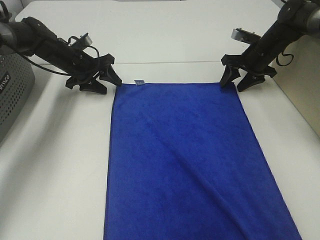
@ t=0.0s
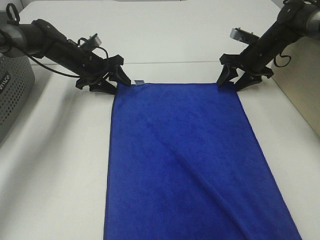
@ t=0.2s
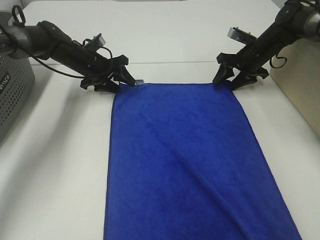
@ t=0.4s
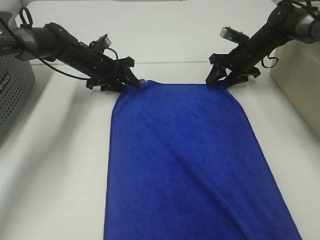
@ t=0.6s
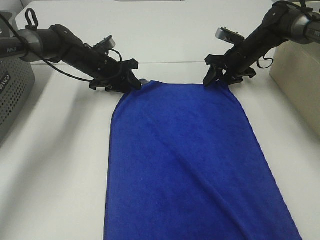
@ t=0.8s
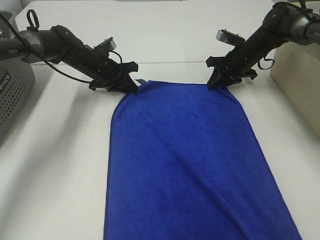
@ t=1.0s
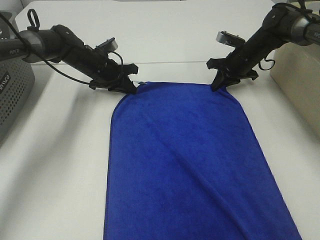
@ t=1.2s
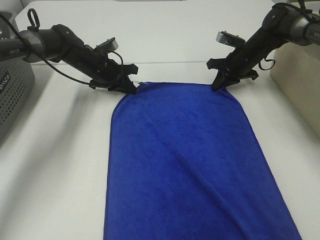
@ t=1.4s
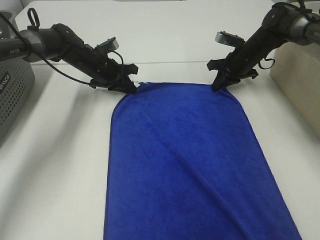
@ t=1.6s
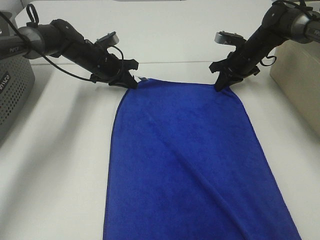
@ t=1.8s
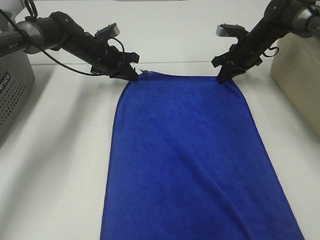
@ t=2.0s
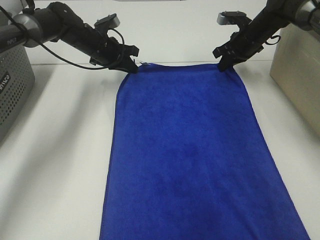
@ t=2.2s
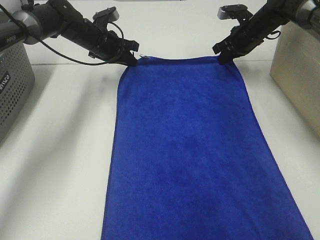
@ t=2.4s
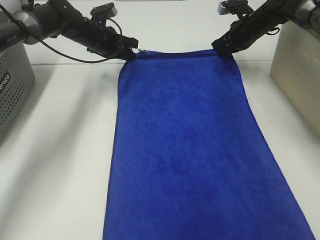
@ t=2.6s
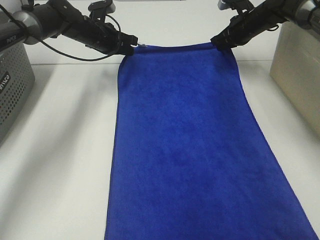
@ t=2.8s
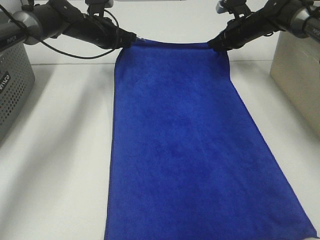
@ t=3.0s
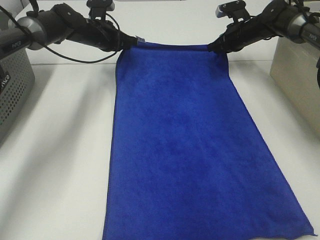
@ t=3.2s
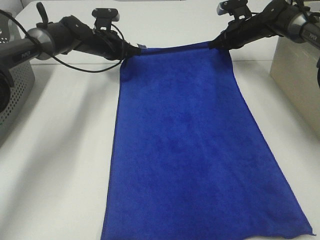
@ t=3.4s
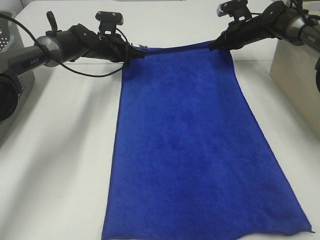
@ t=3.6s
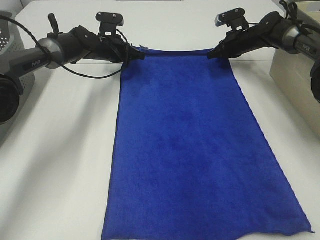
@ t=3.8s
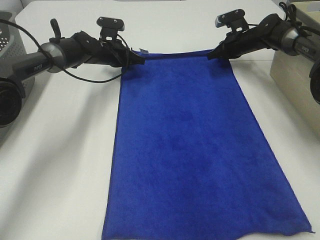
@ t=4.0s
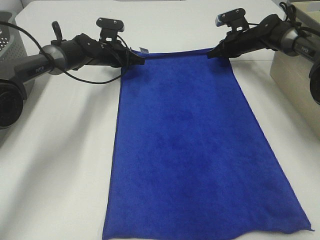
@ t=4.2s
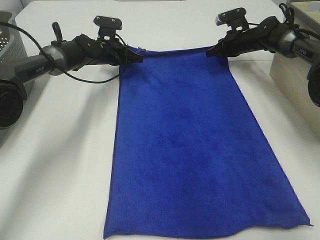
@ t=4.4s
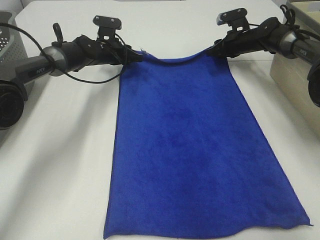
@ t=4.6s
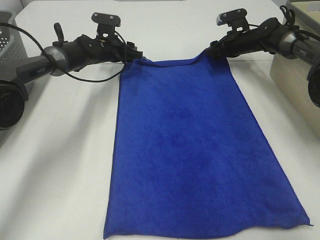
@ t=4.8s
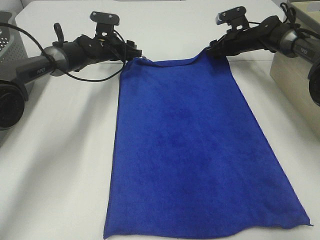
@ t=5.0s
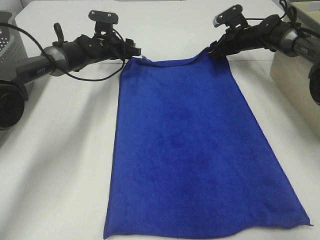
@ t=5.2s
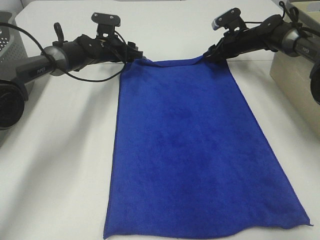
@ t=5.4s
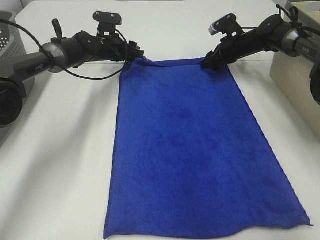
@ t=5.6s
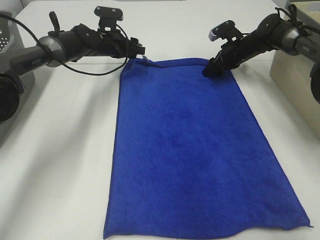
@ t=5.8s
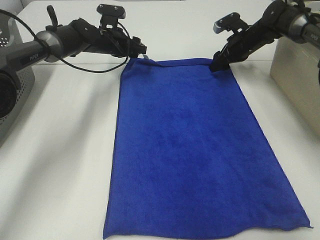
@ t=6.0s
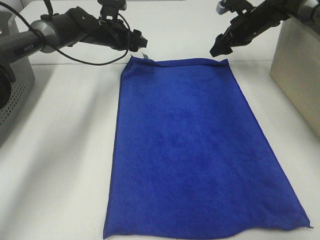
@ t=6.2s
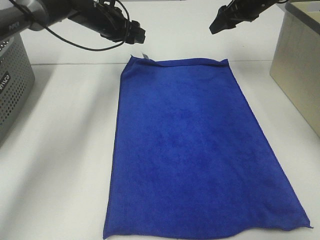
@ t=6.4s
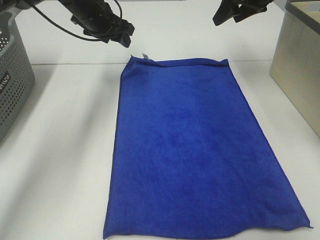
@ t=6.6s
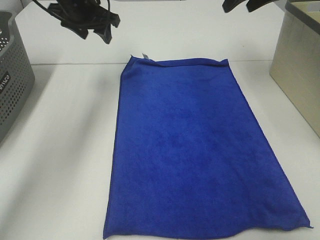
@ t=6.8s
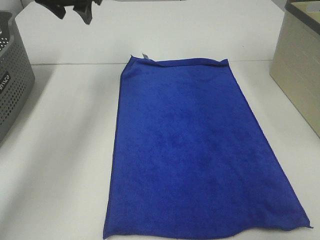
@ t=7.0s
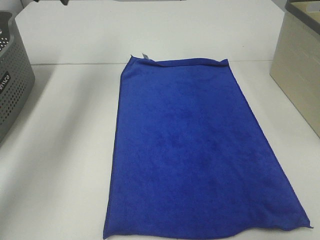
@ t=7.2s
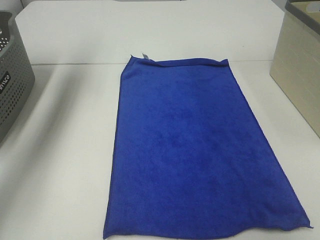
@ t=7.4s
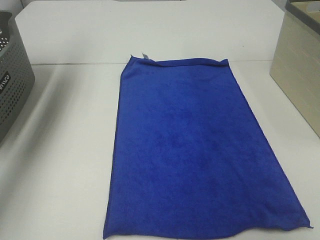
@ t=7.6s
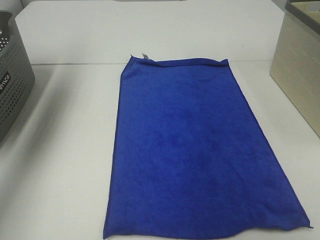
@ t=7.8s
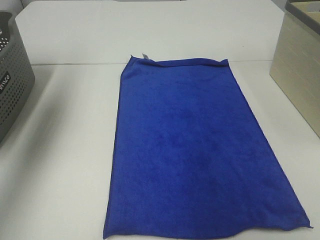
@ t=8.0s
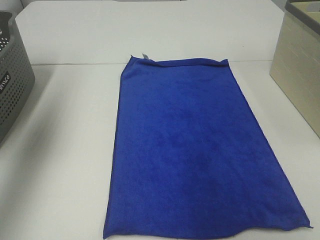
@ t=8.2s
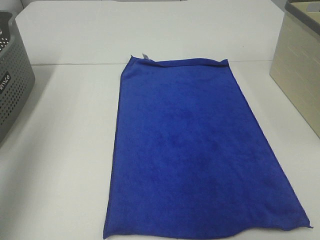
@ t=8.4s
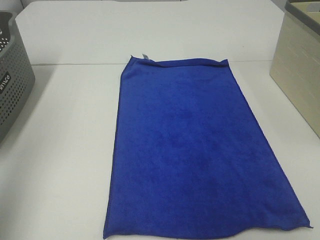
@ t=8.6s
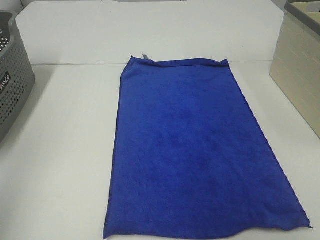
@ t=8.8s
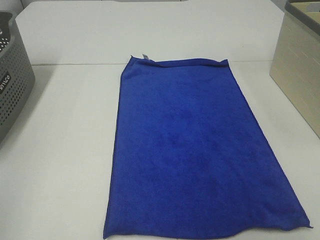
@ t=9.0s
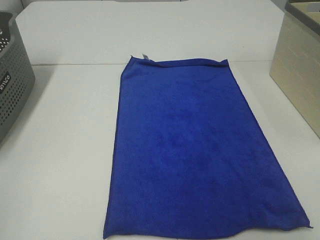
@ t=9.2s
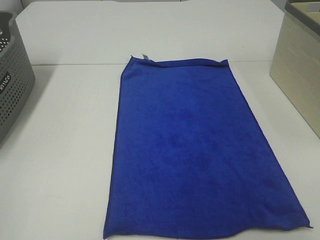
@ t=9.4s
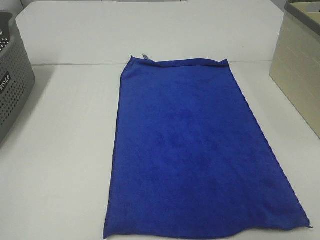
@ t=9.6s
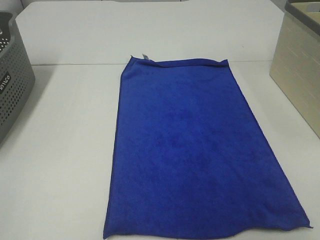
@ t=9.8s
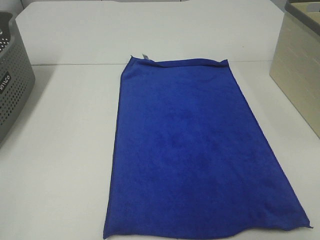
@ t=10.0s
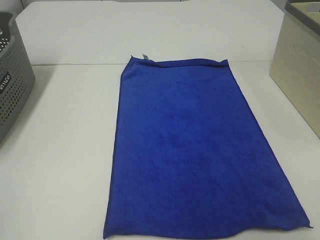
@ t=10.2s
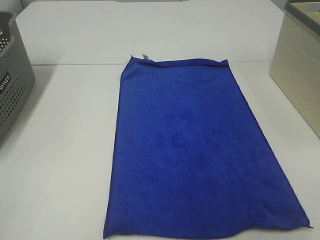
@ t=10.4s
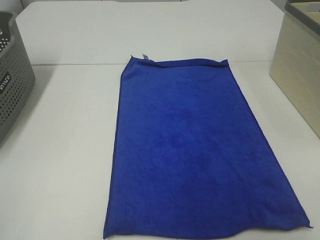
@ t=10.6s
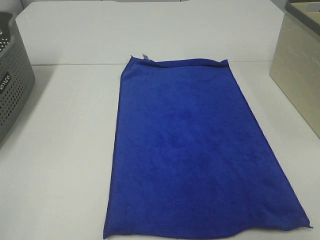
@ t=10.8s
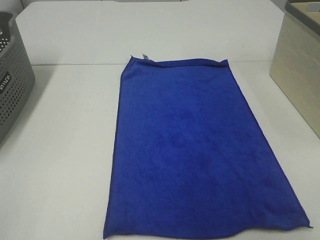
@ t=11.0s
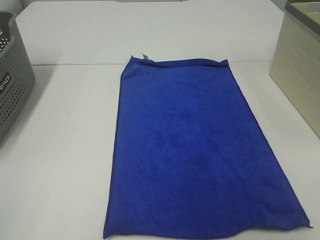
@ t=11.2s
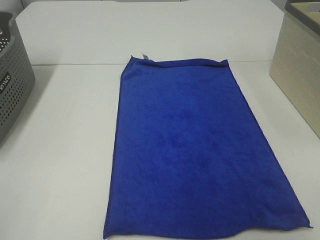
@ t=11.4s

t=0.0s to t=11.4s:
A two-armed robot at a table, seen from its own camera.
Task of the whole recording: Remove the towel and place it.
t=0.0s to t=1.4s: The right gripper closes up. The left gripper shifts approximately 5 cm to the right, and closes its fingers.
t=1.4s to t=2.8s: Both grippers travel together upward, some 5 cm.
t=2.8s to t=4.2s: Both grippers travel together downward, approximately 5 cm.
t=4.2s to t=5.6s: The right gripper opens its fingers, while the left gripper opens up.
t=5.6s to t=7.2s: Both grippers move upward, some 30 cm.
t=7.2s to t=8.6s: The left gripper travels backward by about 35 cm.
t=8.6s to t=10.0s: The left gripper travels backward and downward by roughly 15 cm.
t=10.0s to t=11.4s: Both grippers stay about where they are.

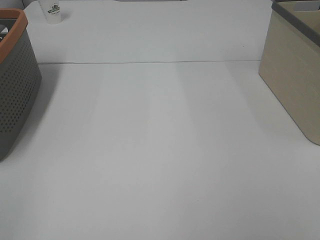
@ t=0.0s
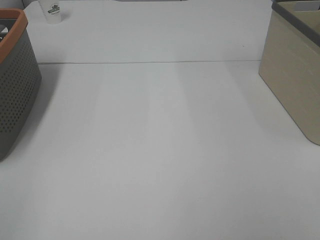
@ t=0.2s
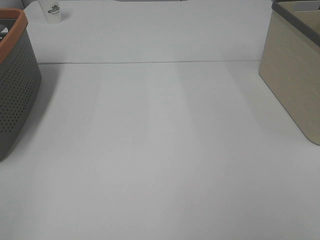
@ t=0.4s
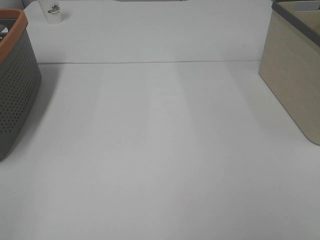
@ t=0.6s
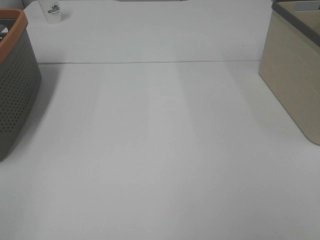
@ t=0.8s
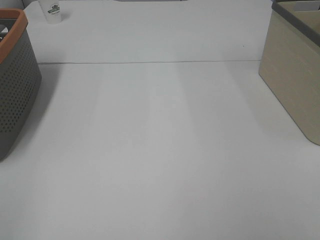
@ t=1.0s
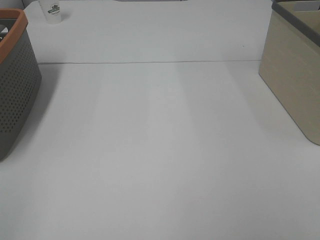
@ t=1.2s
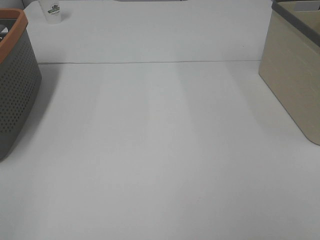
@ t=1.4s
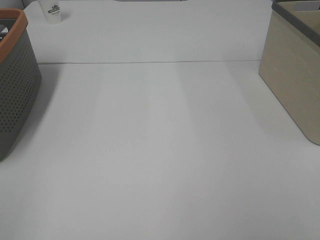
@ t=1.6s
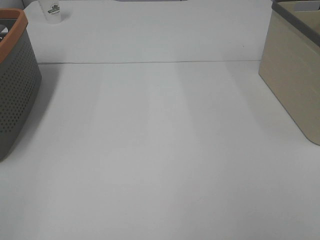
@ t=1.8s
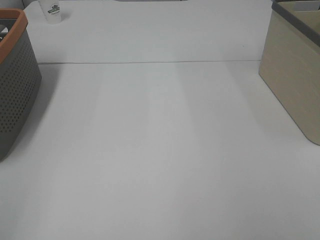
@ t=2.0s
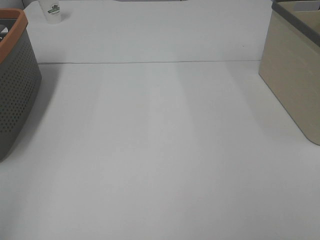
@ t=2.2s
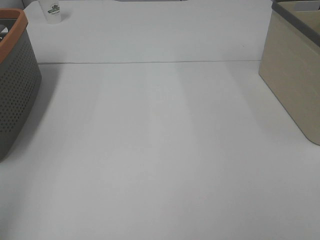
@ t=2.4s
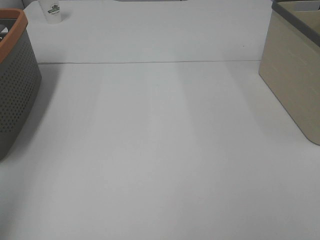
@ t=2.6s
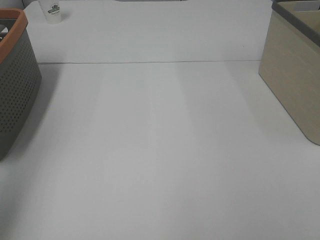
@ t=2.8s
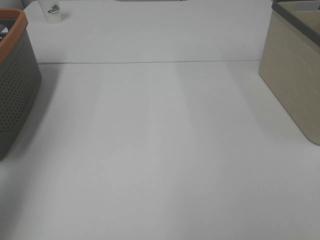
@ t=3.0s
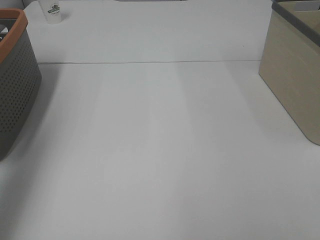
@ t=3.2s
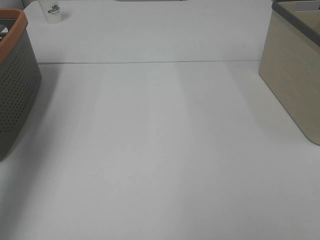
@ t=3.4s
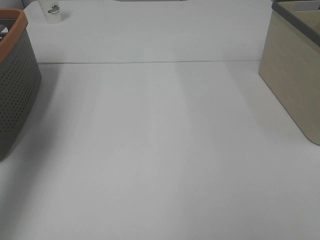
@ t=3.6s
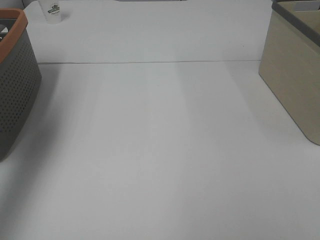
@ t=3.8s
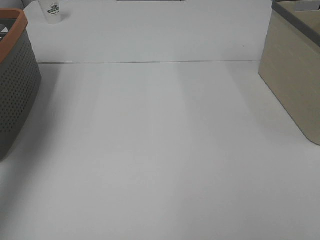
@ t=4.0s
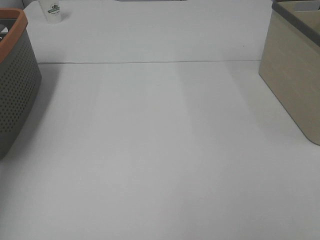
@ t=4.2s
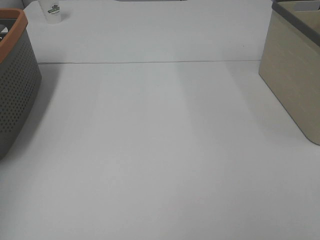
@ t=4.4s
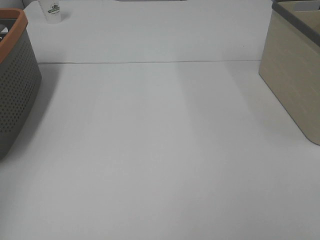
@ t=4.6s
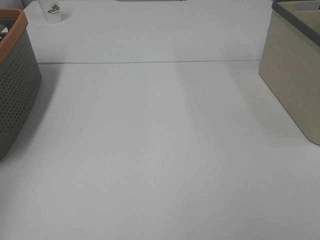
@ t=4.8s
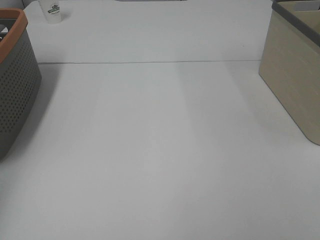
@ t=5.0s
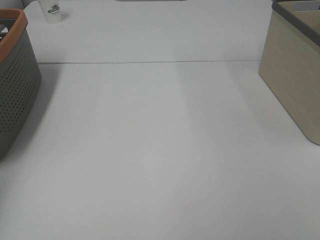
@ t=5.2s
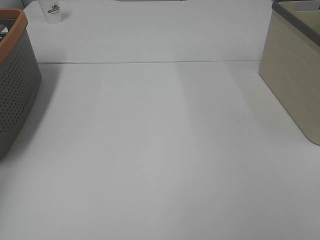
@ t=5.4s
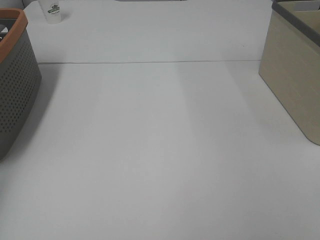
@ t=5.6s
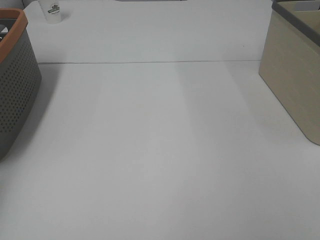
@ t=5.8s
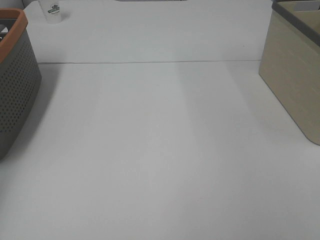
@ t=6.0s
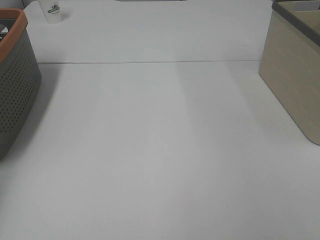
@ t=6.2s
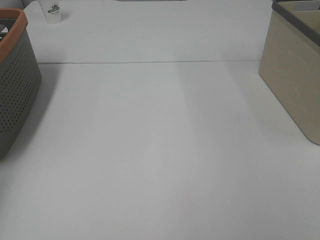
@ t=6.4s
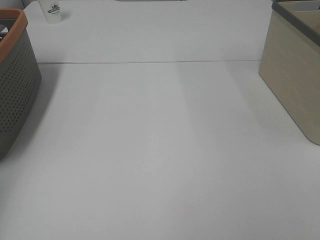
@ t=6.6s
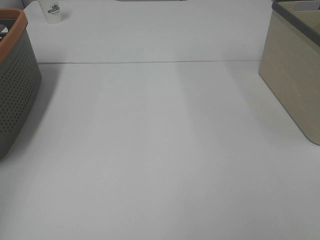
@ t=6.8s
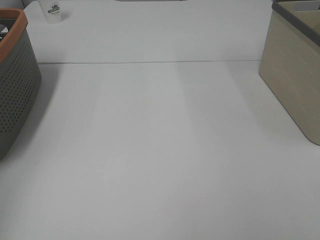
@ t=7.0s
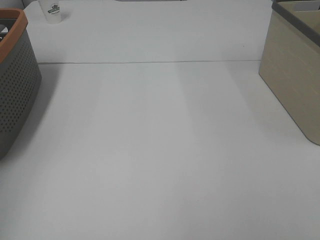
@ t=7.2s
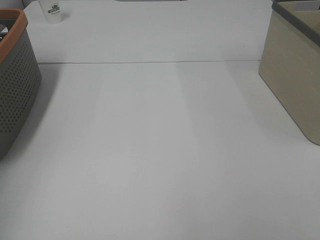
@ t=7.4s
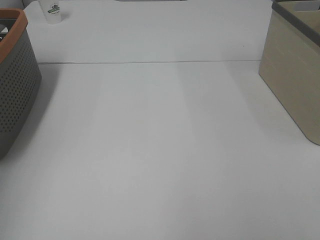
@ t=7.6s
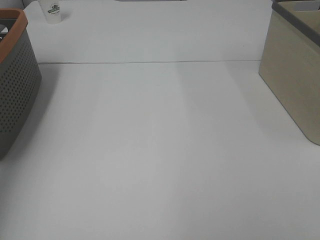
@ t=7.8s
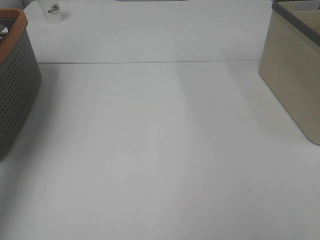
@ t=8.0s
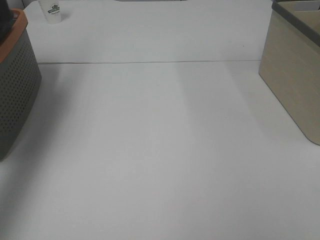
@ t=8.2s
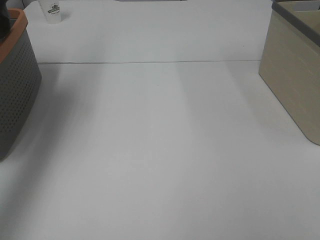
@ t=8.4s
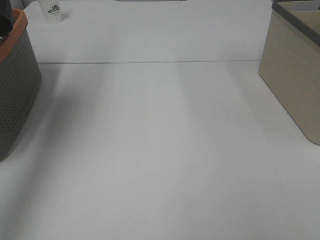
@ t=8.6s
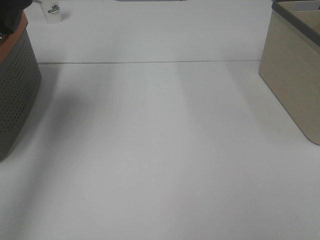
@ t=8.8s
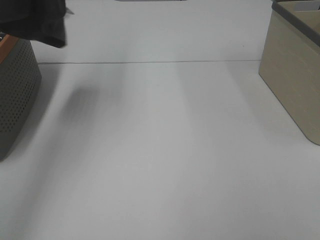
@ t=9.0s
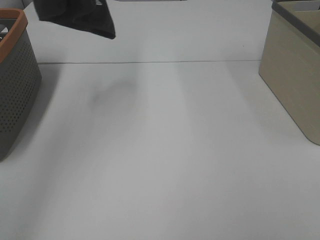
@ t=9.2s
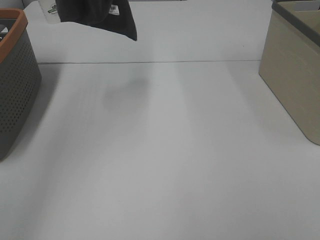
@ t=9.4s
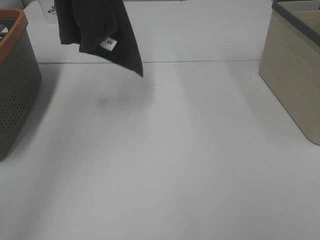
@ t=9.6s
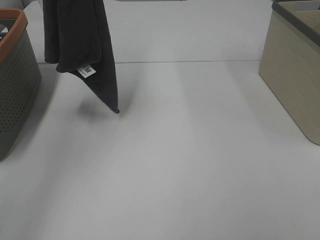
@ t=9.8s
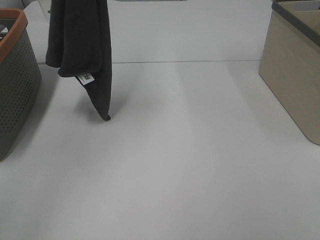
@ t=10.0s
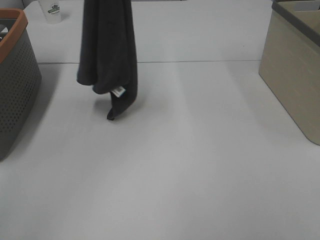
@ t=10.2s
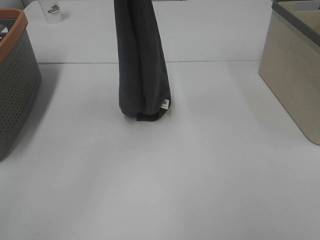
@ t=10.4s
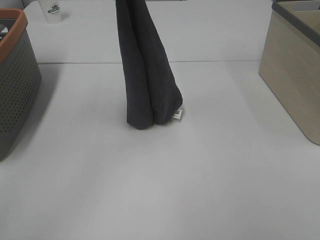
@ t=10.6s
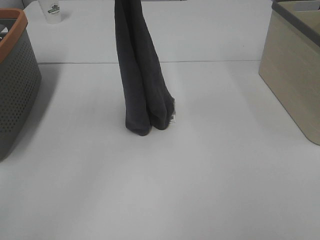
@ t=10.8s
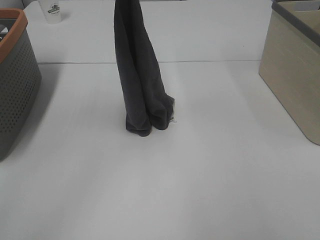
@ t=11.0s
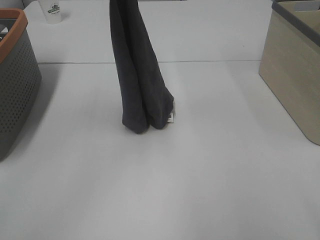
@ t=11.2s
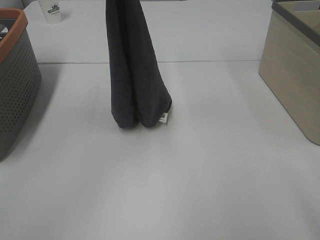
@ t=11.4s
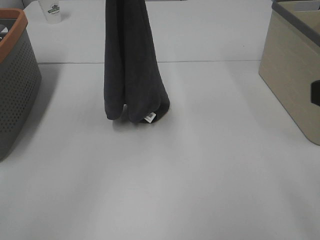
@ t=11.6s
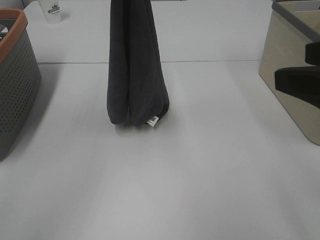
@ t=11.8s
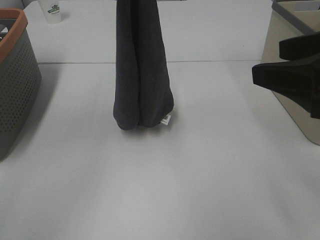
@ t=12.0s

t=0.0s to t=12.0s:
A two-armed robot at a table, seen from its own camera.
Task of the whole recording: Remove the towel and place it.
t=0.0s to t=1.6s: Both grippers stay put.
t=1.6s to t=3.0s: The left gripper heads forward and upward, covering some 20 cm.
t=3.0s to t=4.4s: The left gripper shifts roughly 20 cm forward and to the left.
t=7.6s to t=9.0s: The left gripper moves to the right and upward, about 20 cm.
t=9.0s to t=10.4s: The left gripper travels downward and to the right by about 20 cm.
t=10.4s to t=12.0s: The right gripper is displaced forward by about 20 cm.
